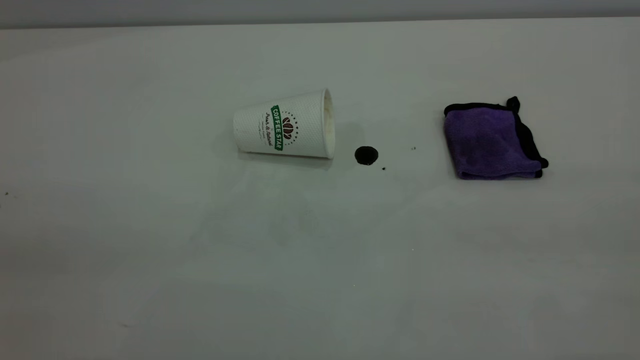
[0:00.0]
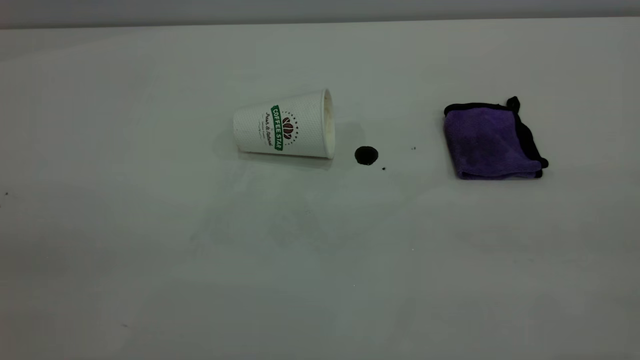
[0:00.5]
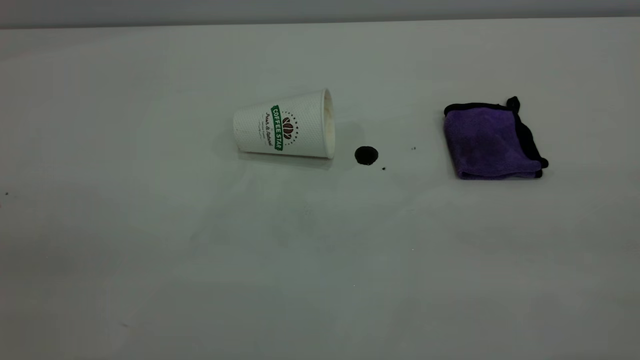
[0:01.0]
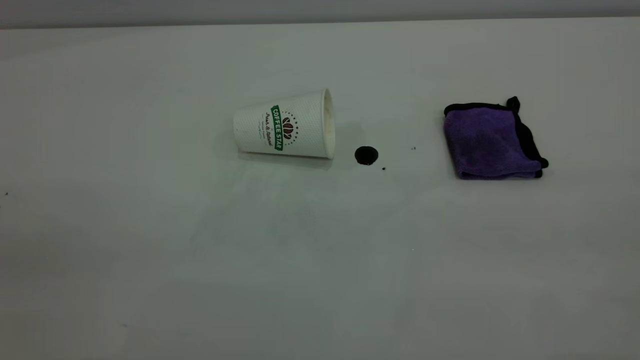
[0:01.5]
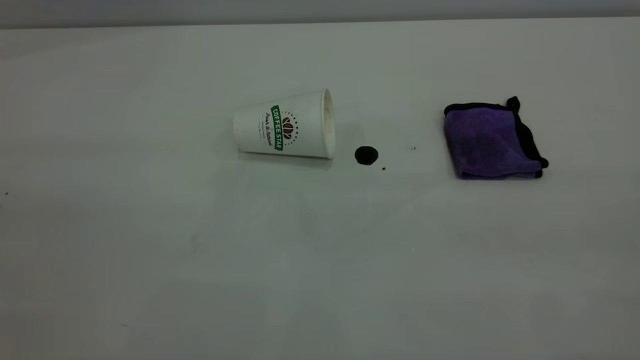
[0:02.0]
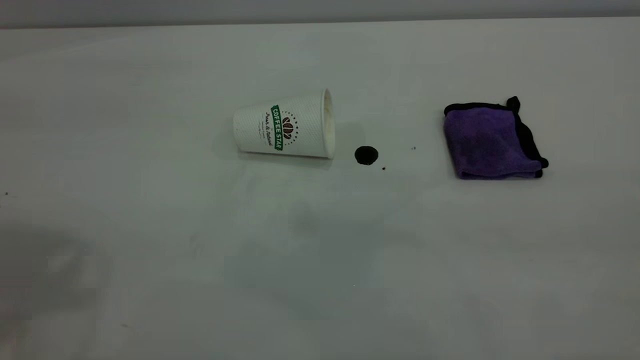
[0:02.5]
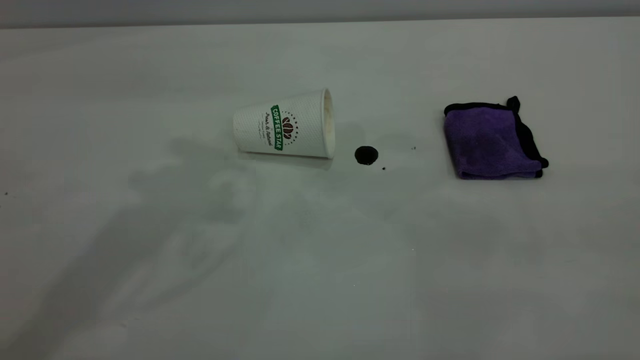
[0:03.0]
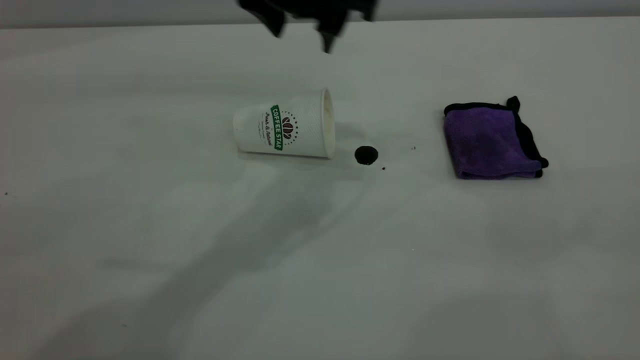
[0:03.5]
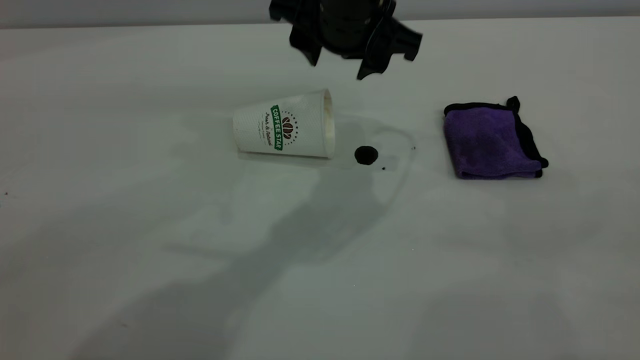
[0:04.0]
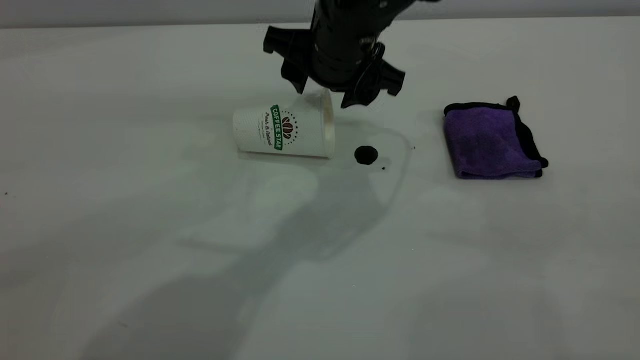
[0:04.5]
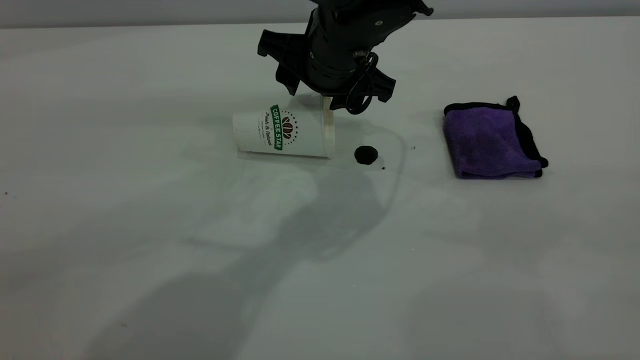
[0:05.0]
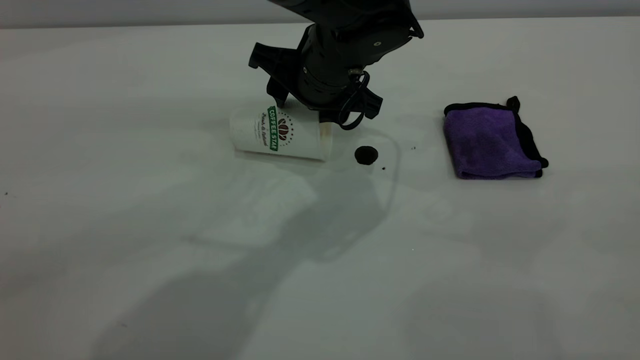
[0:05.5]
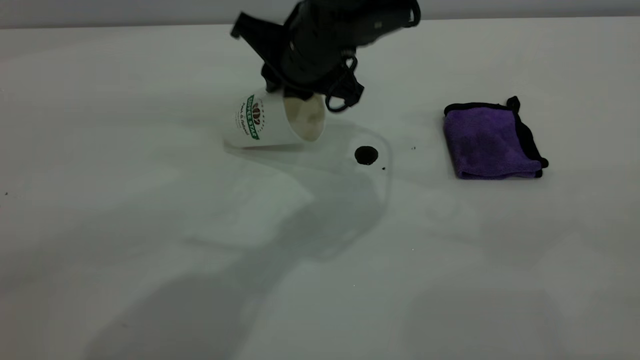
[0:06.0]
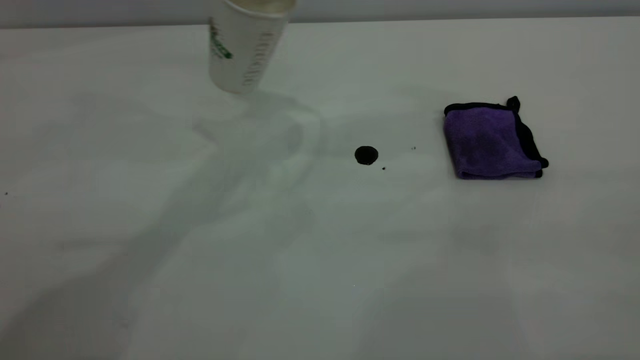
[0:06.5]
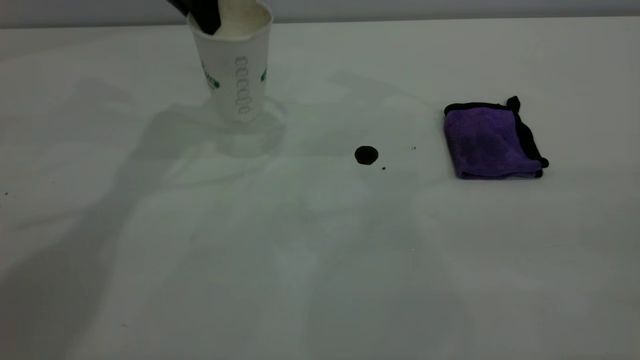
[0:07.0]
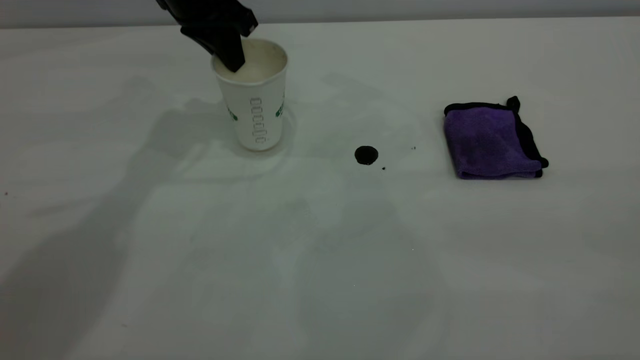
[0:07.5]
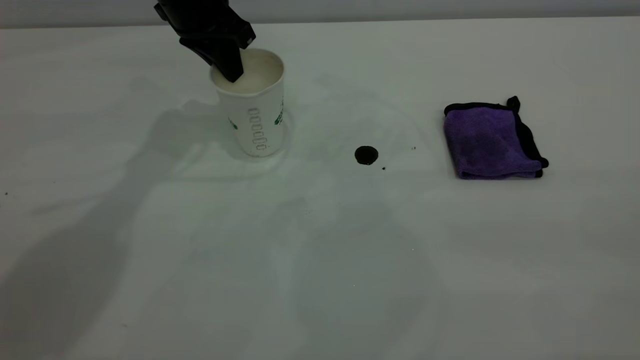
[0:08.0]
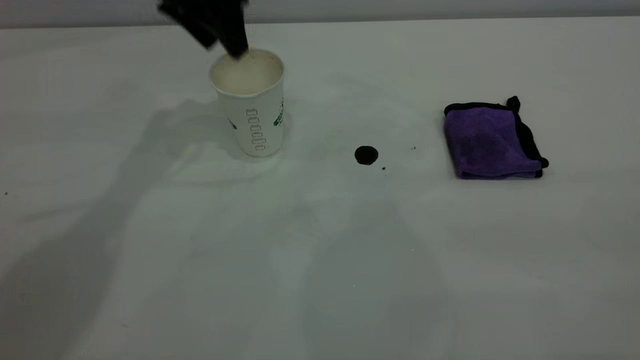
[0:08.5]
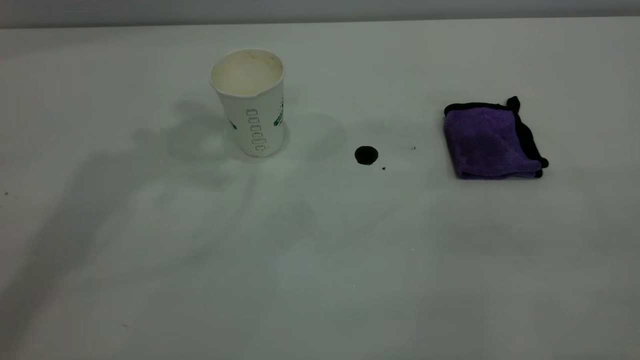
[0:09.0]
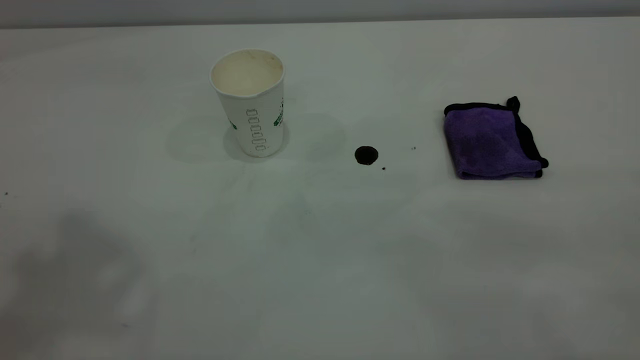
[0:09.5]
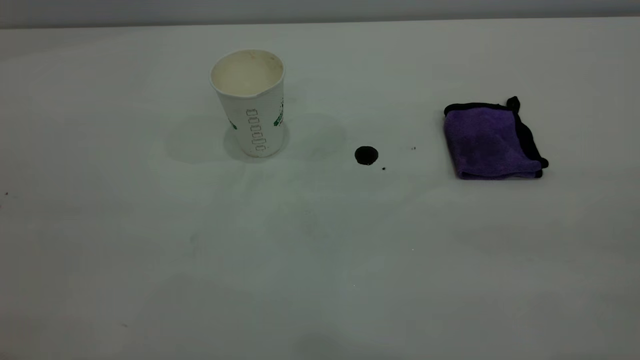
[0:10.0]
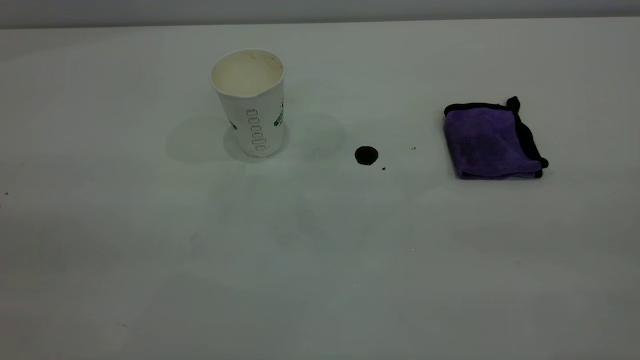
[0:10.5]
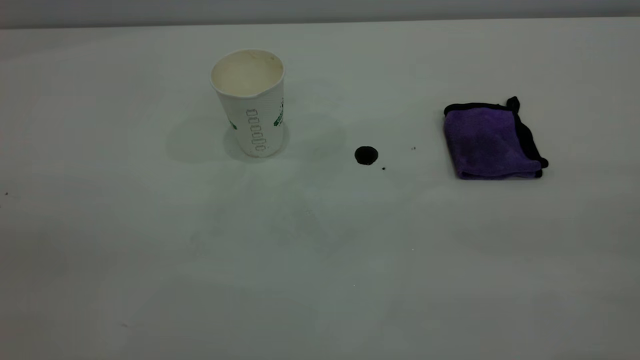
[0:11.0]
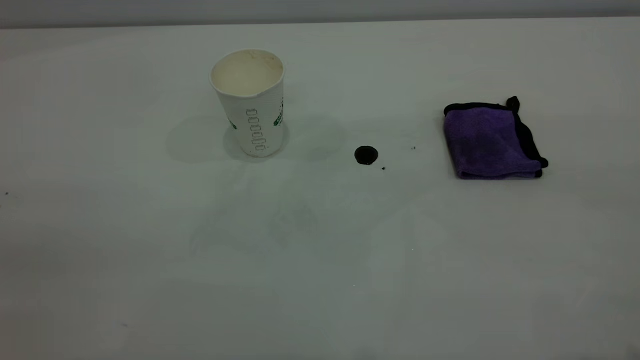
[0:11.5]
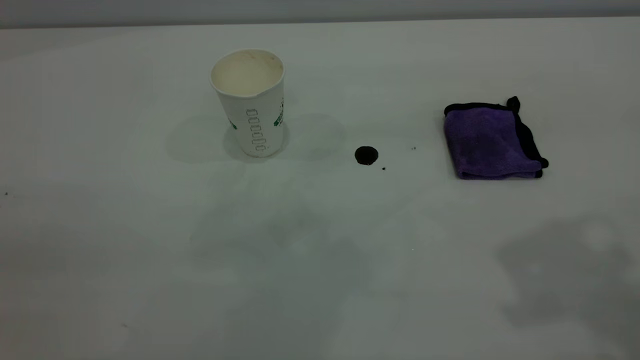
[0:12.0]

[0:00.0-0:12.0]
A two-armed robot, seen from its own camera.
Task of the whole recording: the left gripper pick up the fallen cup and place it upright, the right gripper grasp the purple rag and wipe the coffee stain on the table, the right gripper put the purple rag back in its original position.
Step, 0:00.0 to 0:08.0: Stand the paper cup upright.
0:02.0 to 0:04.0: The left gripper is displaced to the right, forward and downward by approximately 50 cm.
0:04.0 to 0:06.0: The left gripper closes its fingers.
0:06.0 to 0:08.0: The left gripper shifts approximately 20 cm to the left and forward.
0:08.0 to 0:10.0: The left gripper is displaced backward and upward by about 40 cm, and opens its fingers.

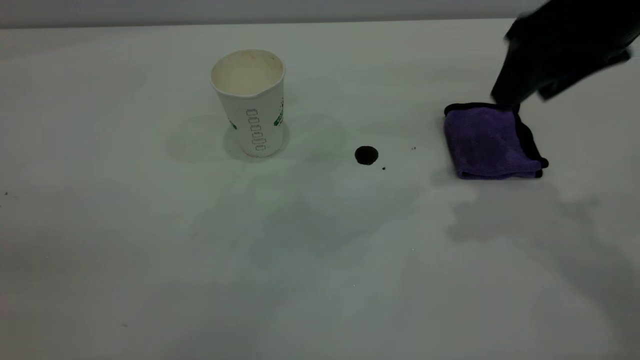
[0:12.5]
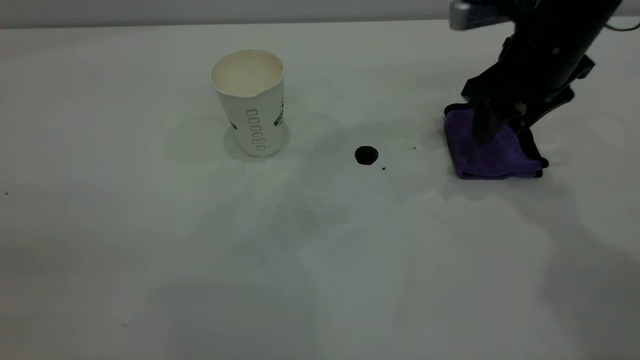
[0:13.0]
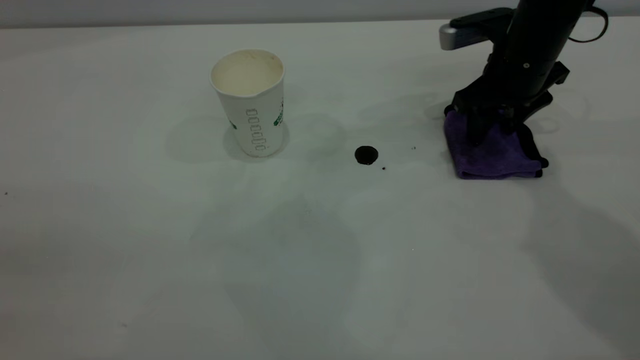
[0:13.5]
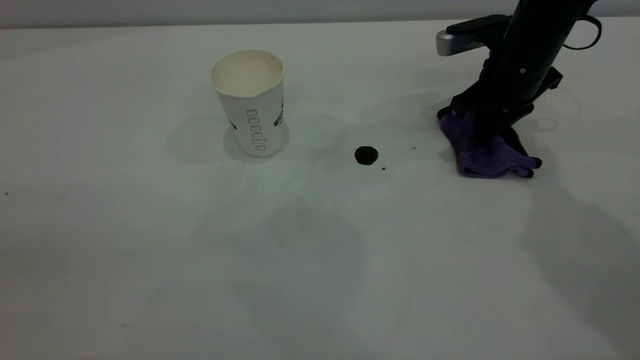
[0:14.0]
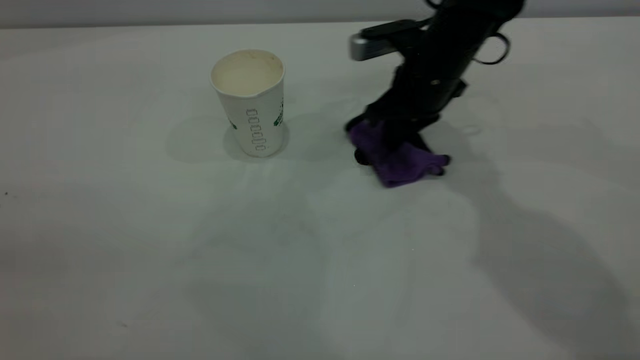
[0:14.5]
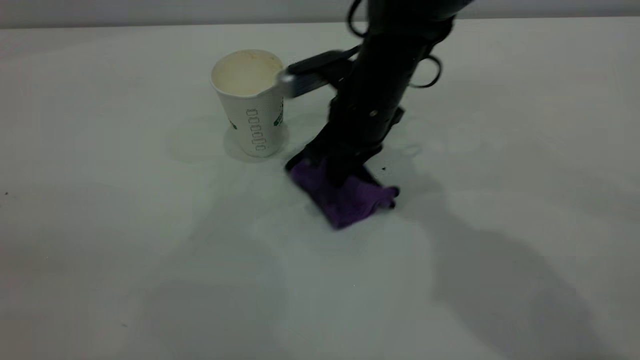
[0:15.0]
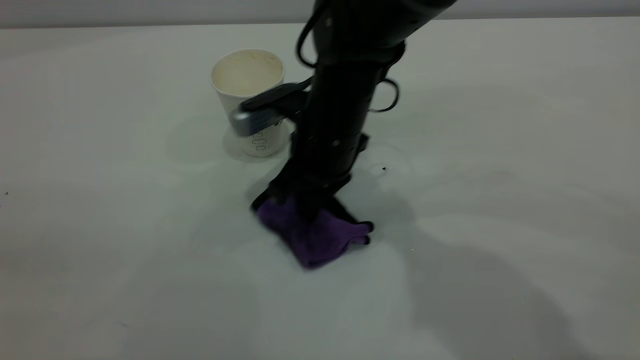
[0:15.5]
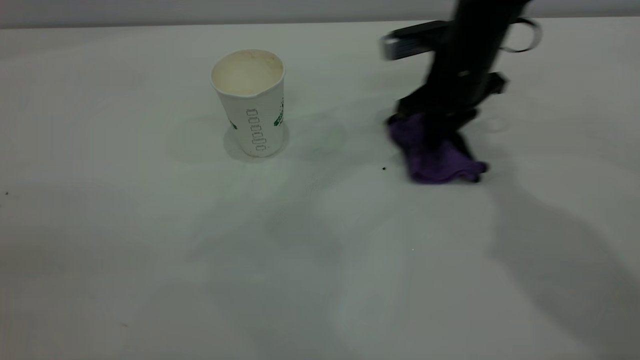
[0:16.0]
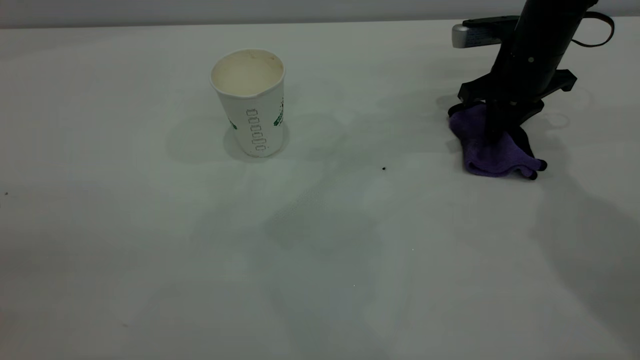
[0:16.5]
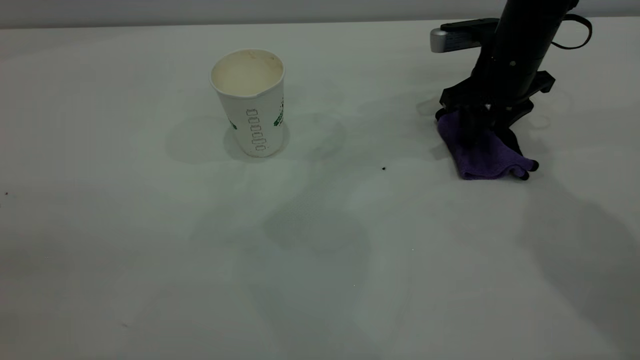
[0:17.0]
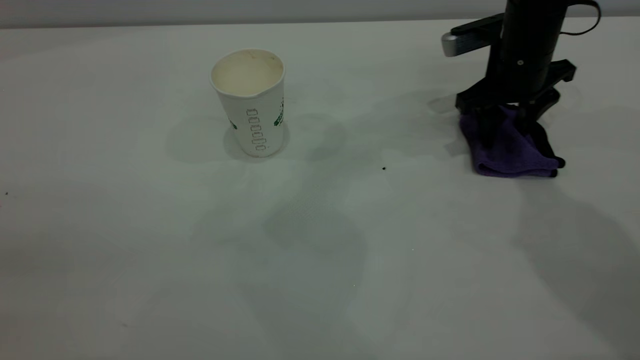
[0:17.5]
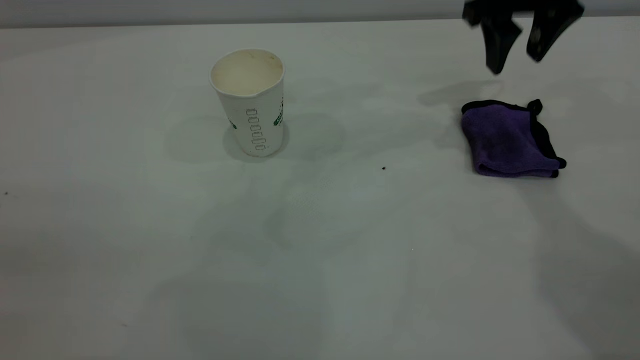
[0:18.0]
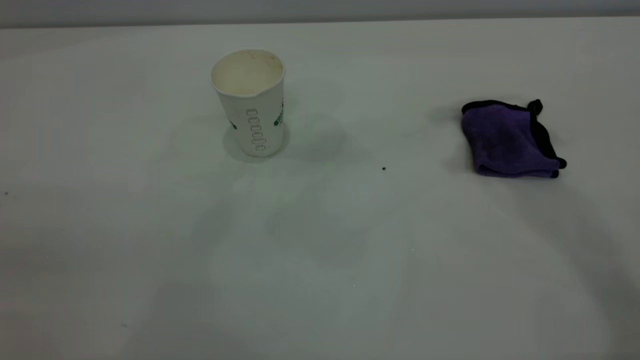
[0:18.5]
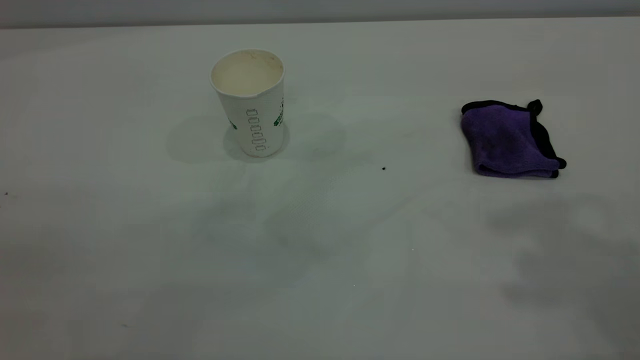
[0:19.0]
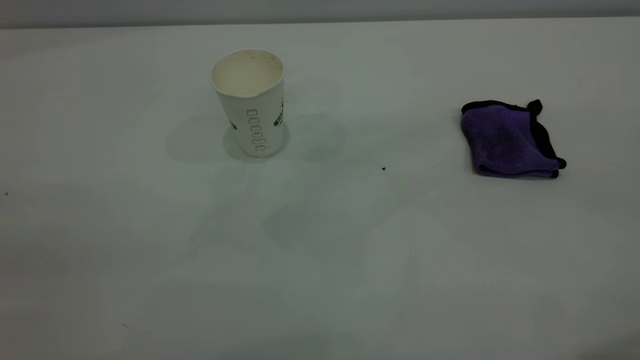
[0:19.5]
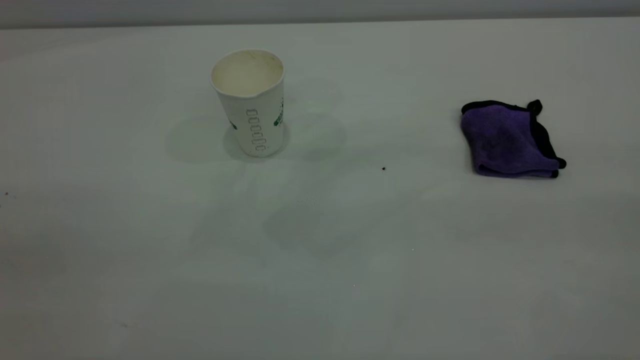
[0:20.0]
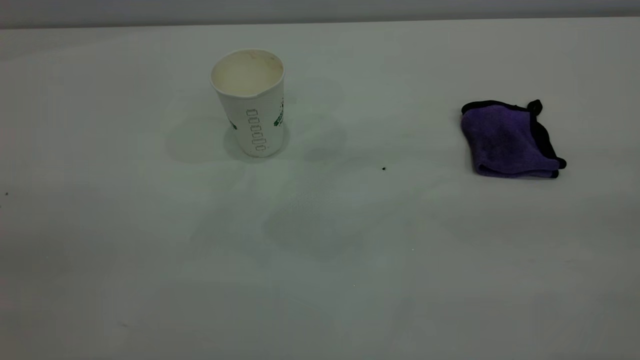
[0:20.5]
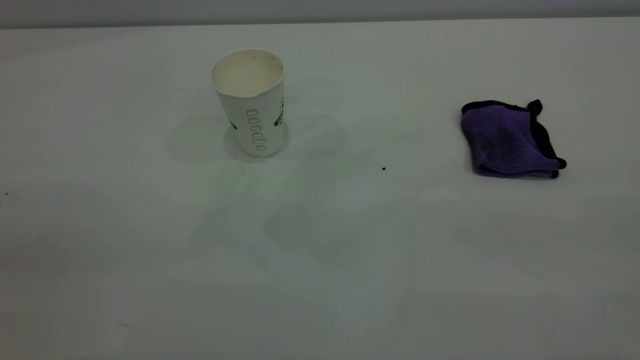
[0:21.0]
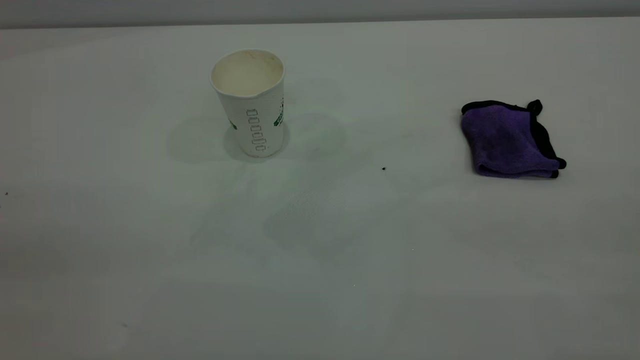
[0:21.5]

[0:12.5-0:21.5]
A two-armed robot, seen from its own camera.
Task of the whole recording: the left gripper pick up the fallen cup and place it upright, the right gripper grasp the purple rag and wipe the coffee stain on the table, the right gripper put the purple rag back in its original position.
Step, 0:12.5 to 0:17.5: Wipe the stains off the table with a rag.
0:12.5 to 0:14.5: The right gripper is displaced downward, forward and to the left by approximately 20 cm, and closes its fingers.
0:14.5 to 0:17.0: The right gripper goes roughly 10 cm to the right, and opens its fingers.
0:17.0 to 0:19.5: The right gripper shifts about 50 cm backward and upward.
